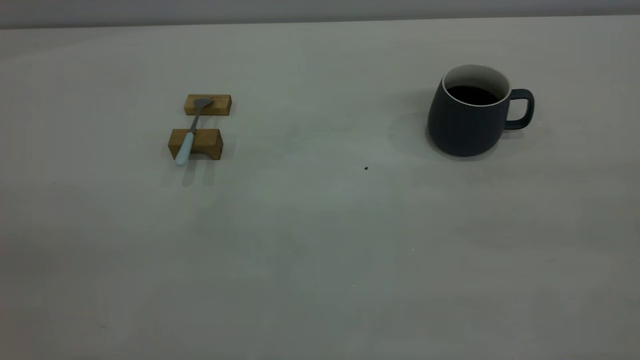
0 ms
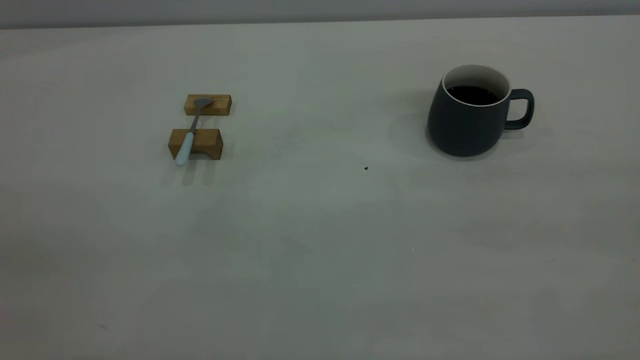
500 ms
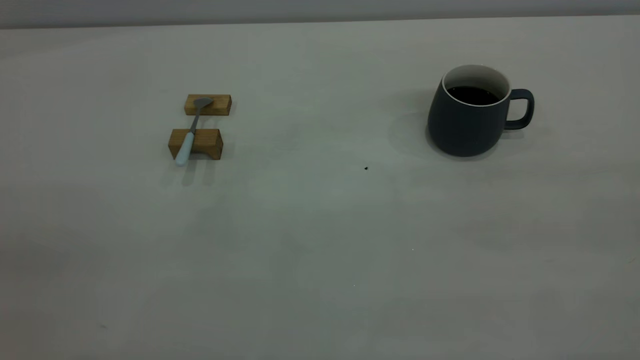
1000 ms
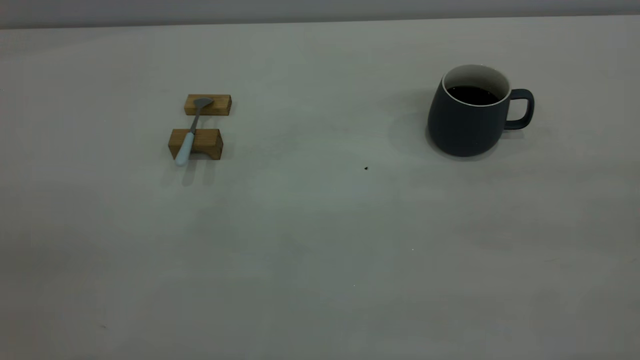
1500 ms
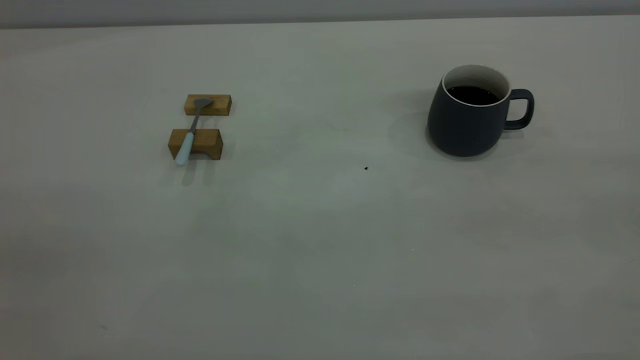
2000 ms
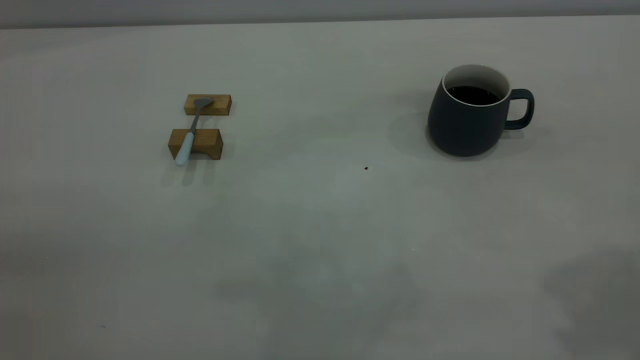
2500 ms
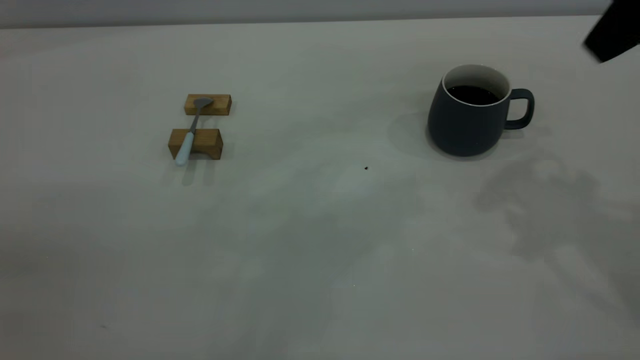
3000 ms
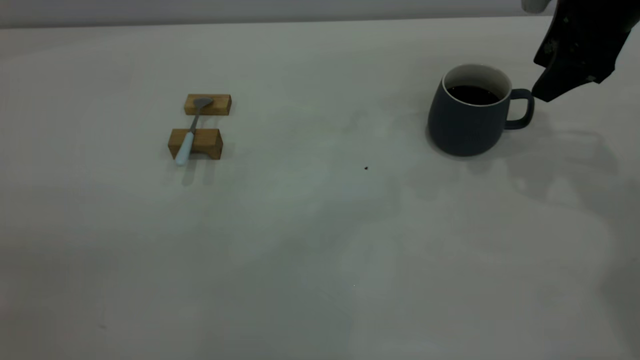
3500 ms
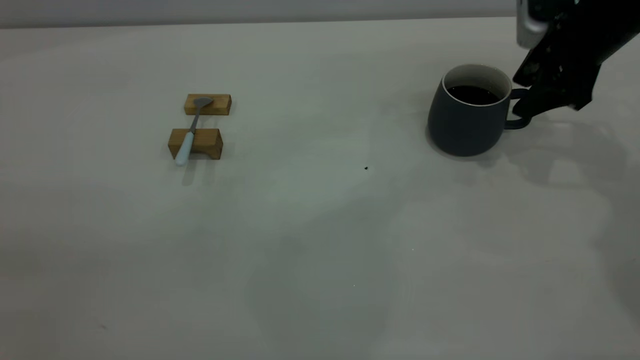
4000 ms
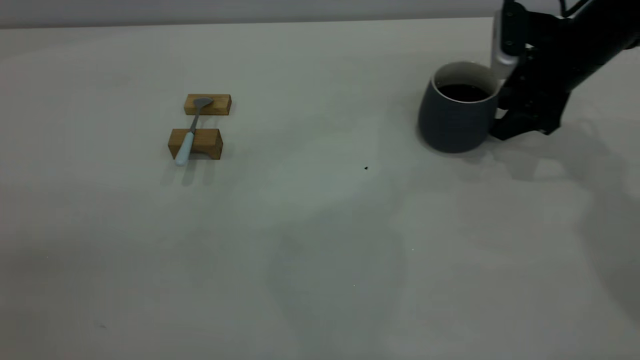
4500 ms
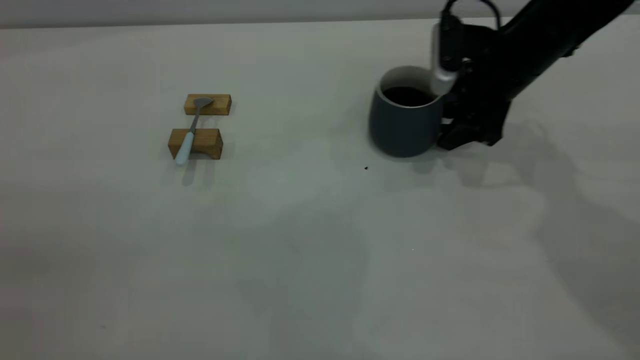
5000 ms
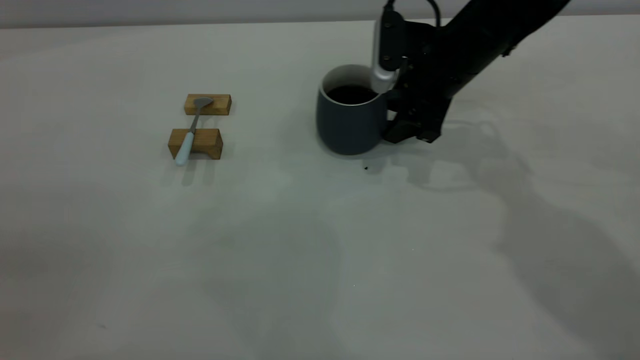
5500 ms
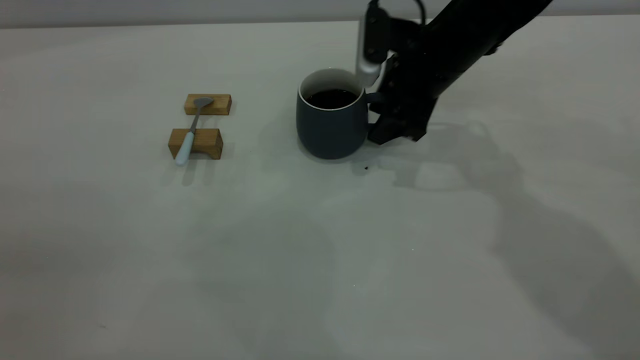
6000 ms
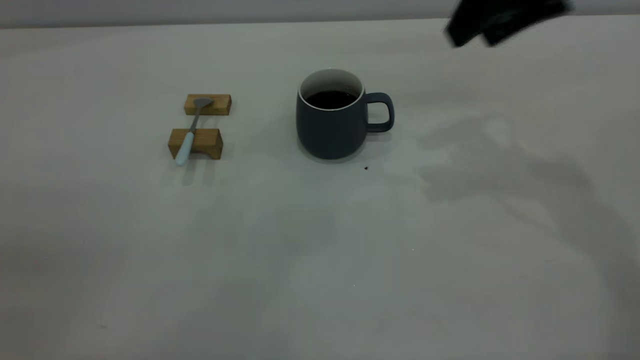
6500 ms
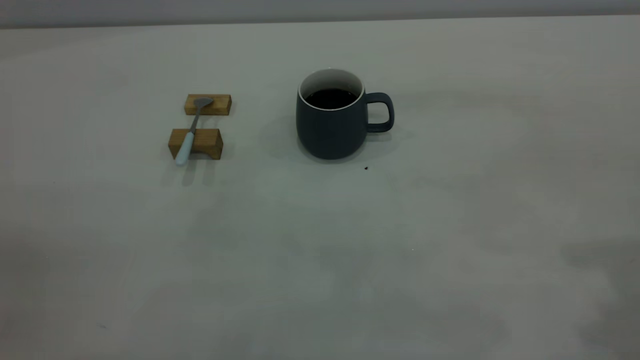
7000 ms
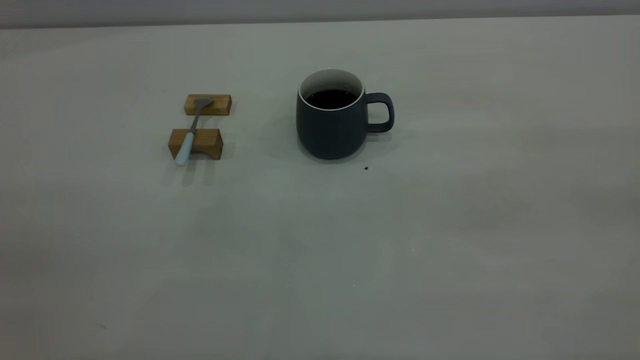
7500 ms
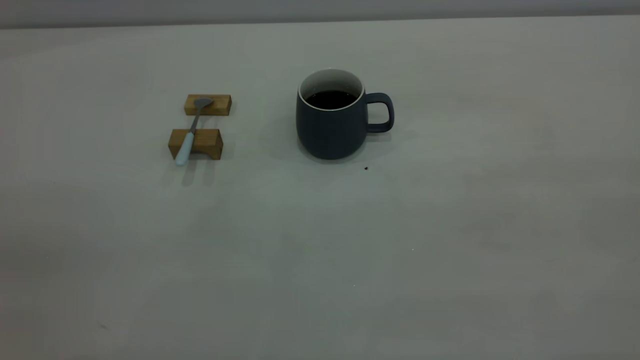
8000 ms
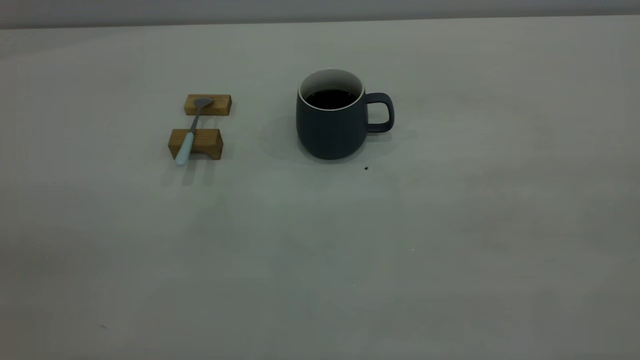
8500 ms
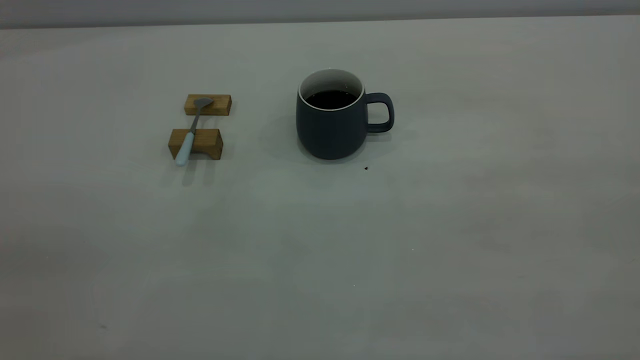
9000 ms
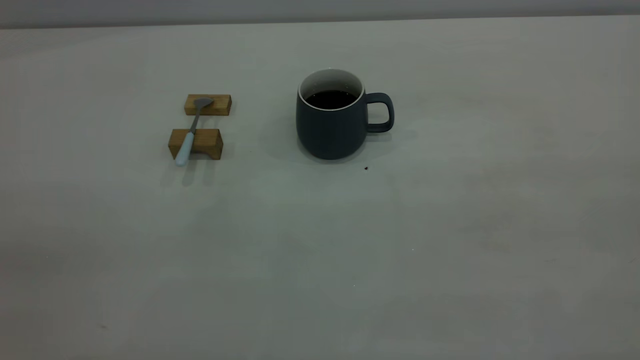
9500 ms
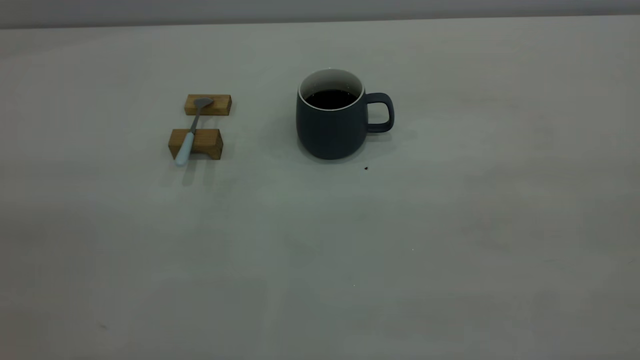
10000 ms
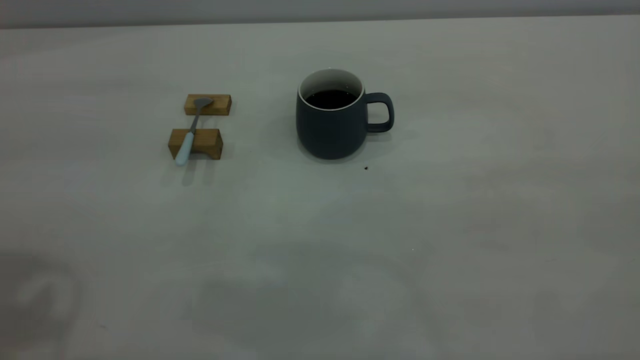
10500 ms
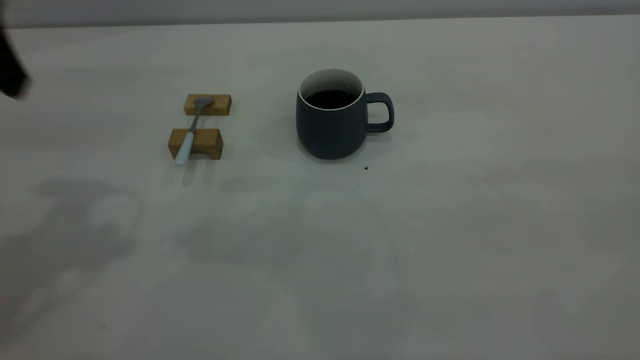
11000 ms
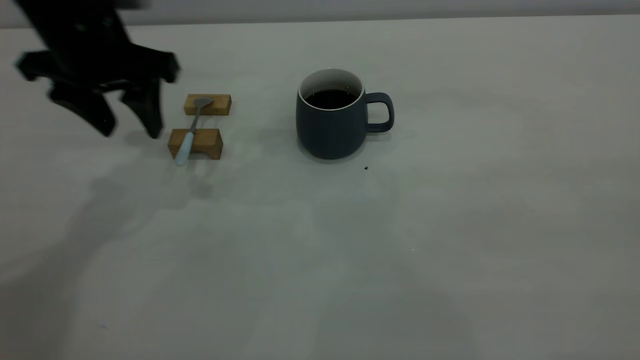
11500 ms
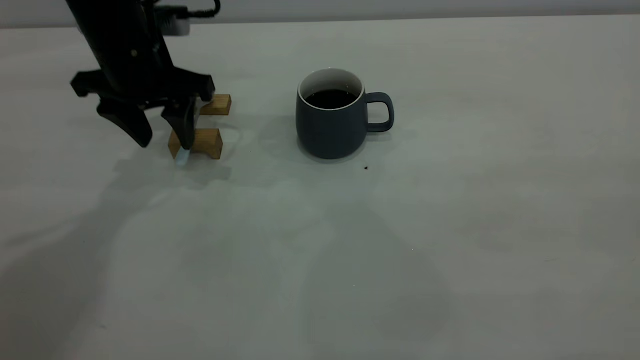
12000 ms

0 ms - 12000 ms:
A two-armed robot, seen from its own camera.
Step, 0 ms - 6000 ms: Move the cup with coffee to the center of view.
2000 ms - 4000 ms: The right gripper goes roughly 50 cm forward and downward.
4000 ms - 6000 ms: The right gripper moves to the left, approximately 15 cm.
6000 ms - 8000 ms: The right gripper heads backward and upward, covering roughly 50 cm.
10000 ms - 12000 ms: The left gripper travels forward and downward by approximately 40 cm.

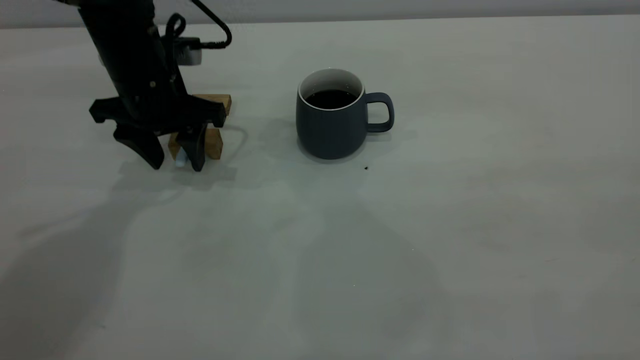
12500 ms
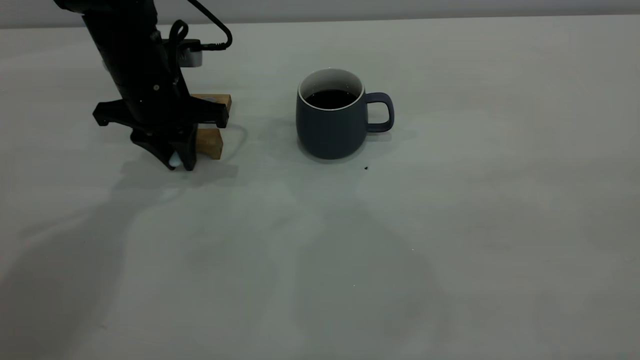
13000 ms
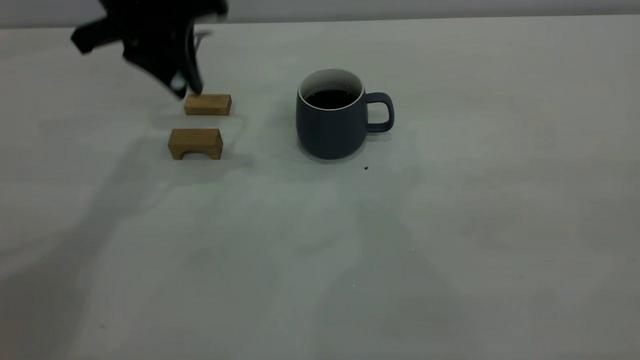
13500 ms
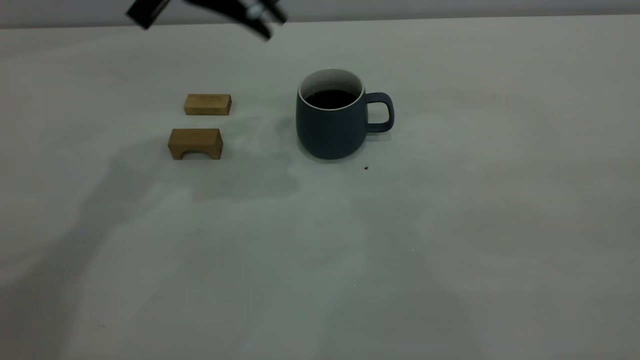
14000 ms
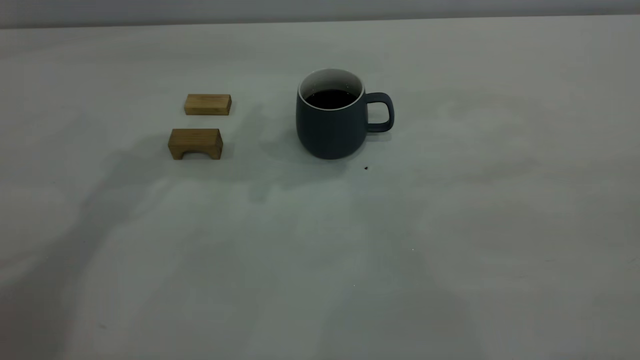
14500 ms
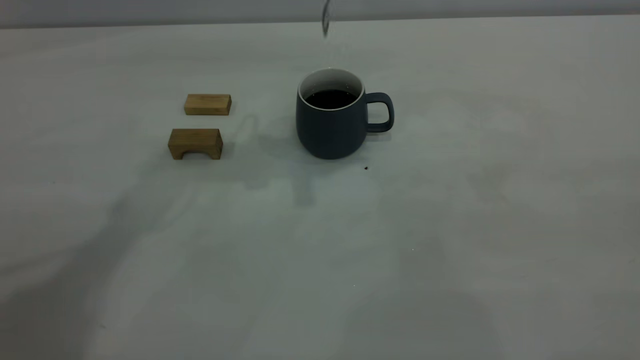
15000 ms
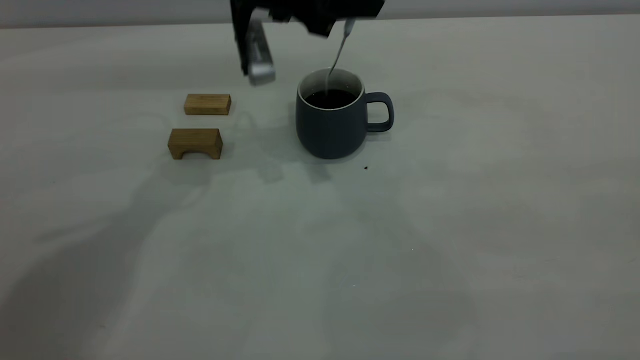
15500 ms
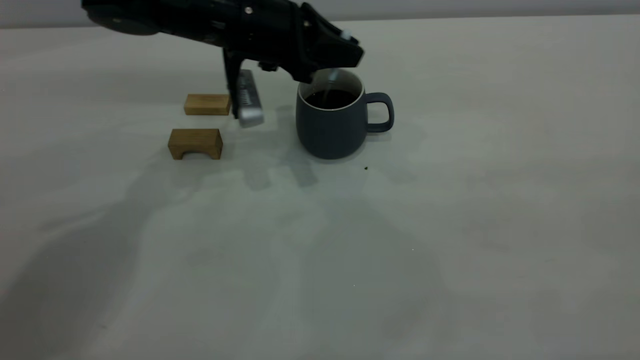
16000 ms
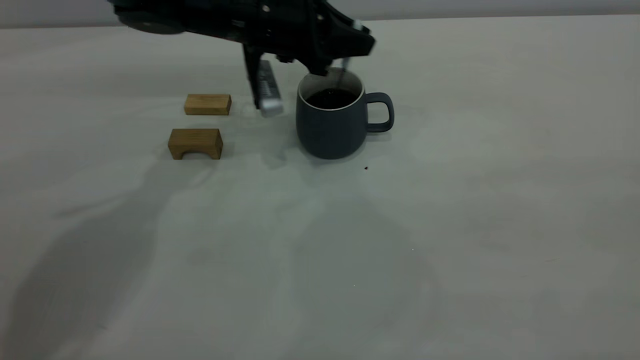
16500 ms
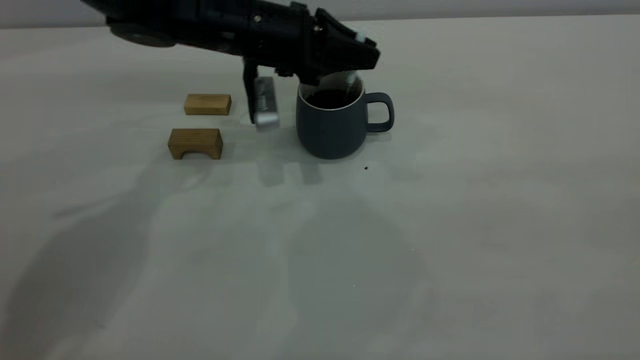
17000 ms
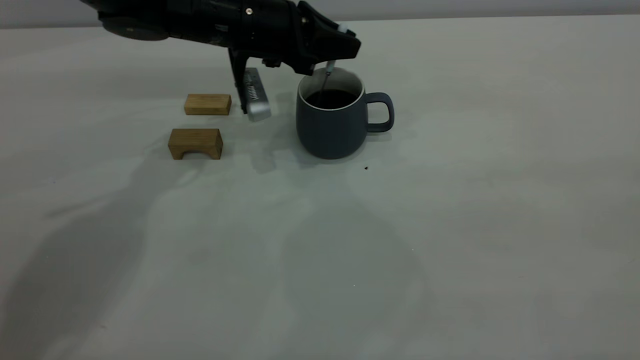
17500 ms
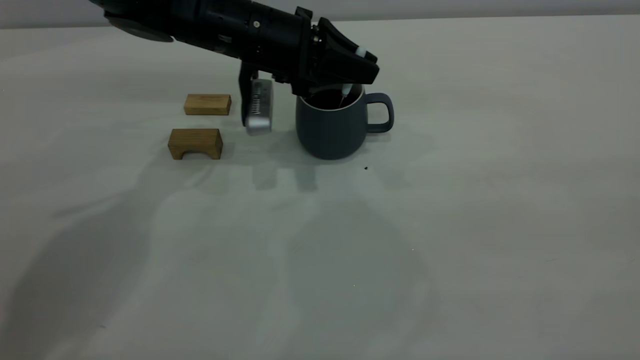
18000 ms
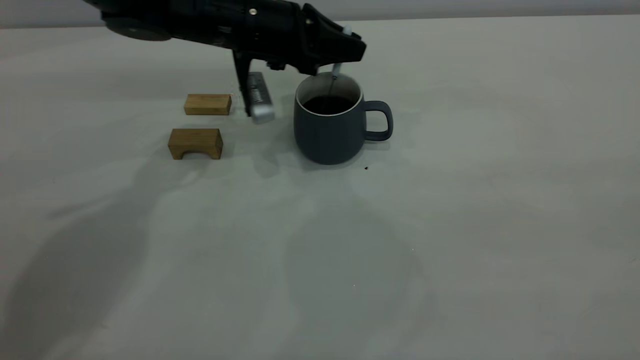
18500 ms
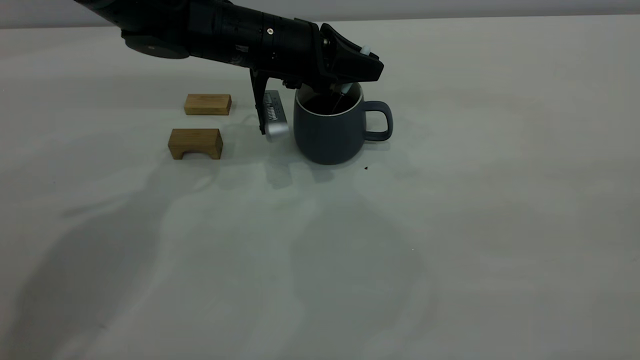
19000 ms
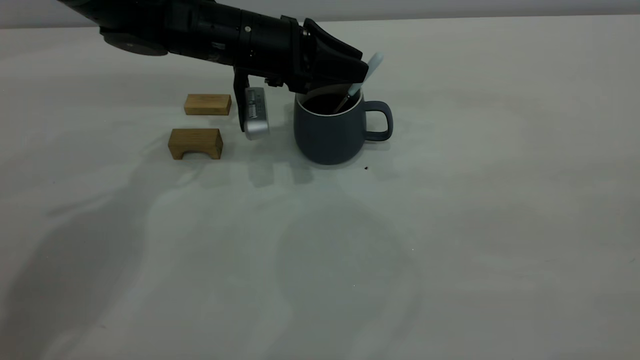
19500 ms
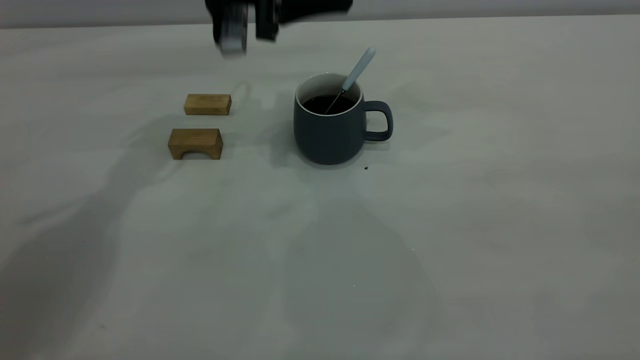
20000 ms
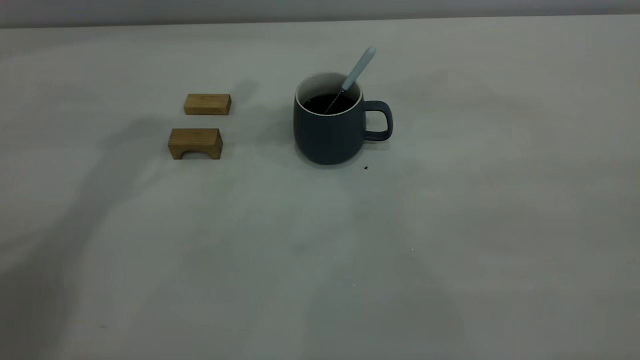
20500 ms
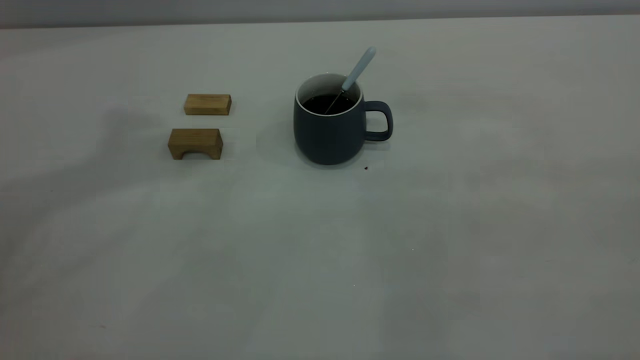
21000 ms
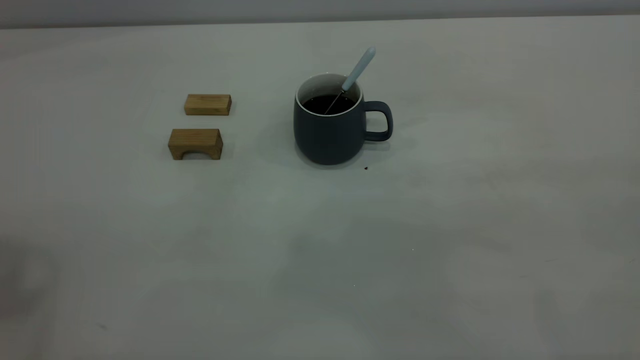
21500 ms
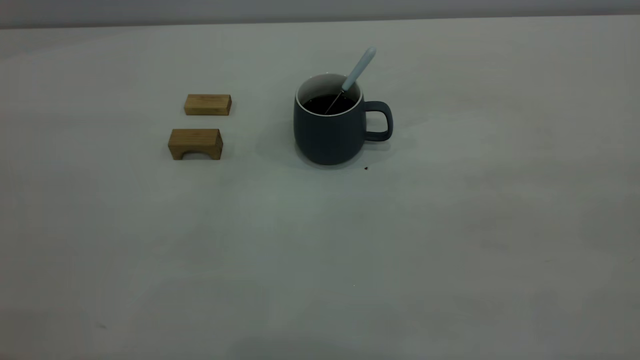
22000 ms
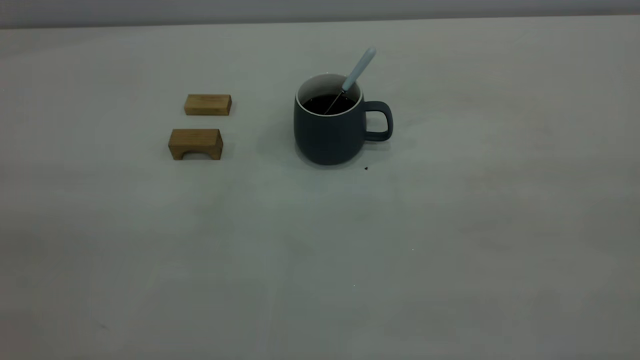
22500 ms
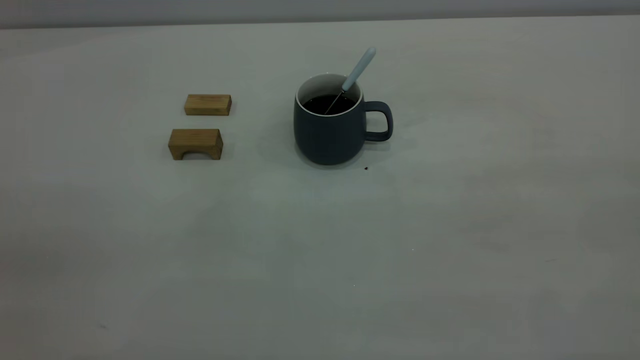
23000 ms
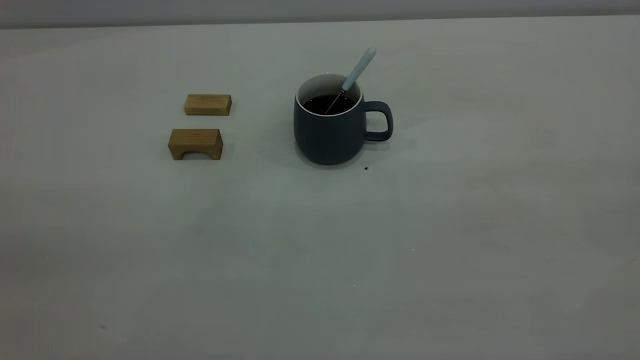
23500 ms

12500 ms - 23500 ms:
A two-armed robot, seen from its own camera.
Step, 13500 ms - 19500 ms: Stir the coffee in the cup.
12500 ms - 14500 ms: The left gripper moves upward, roughly 20 cm, and closes.
14500 ms - 16000 ms: The left gripper is displaced downward by about 15 cm.
16000 ms - 18000 ms: The grippers make only small movements.
18000 ms - 20000 ms: The left gripper travels upward by about 10 cm, and opens its fingers.
20000 ms - 21500 ms: The left gripper is displaced upward, backward and to the left by some 50 cm.
